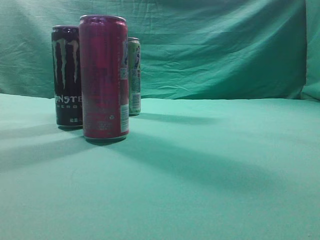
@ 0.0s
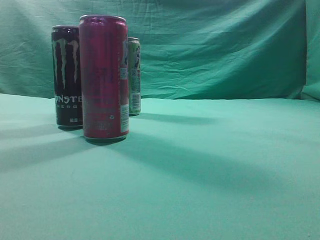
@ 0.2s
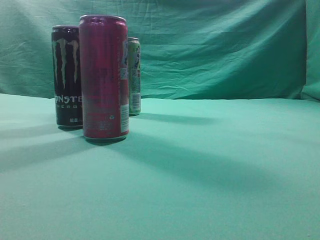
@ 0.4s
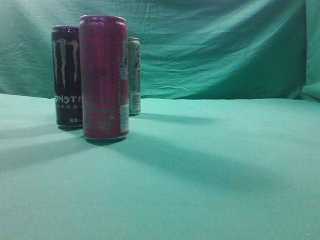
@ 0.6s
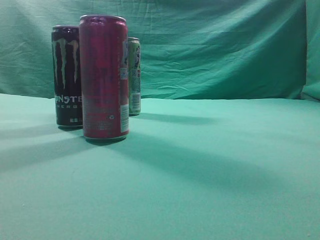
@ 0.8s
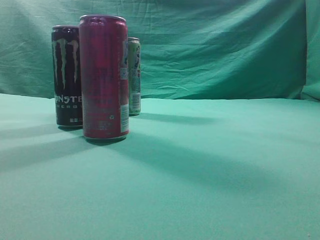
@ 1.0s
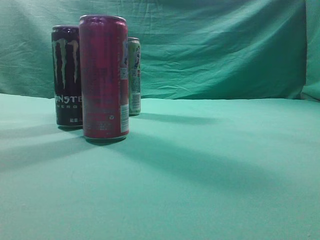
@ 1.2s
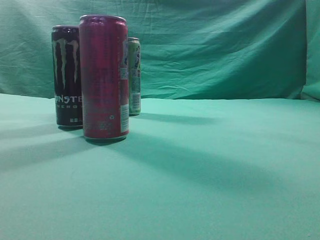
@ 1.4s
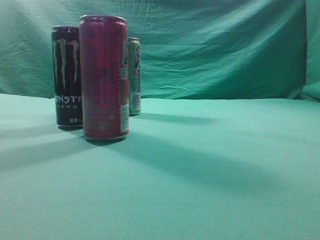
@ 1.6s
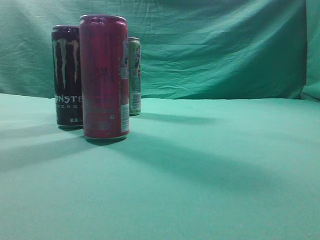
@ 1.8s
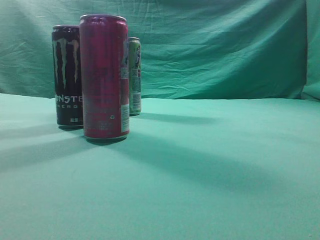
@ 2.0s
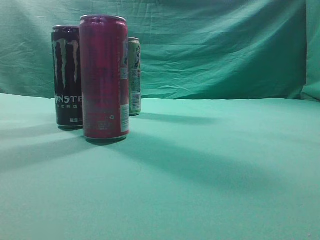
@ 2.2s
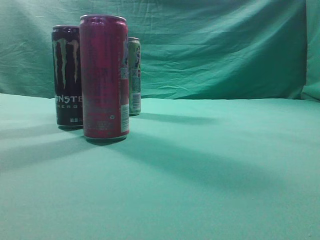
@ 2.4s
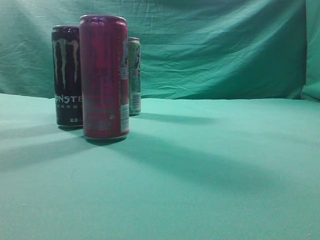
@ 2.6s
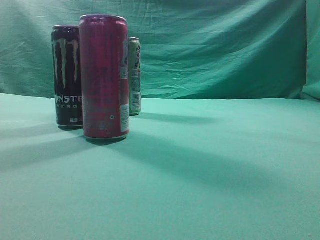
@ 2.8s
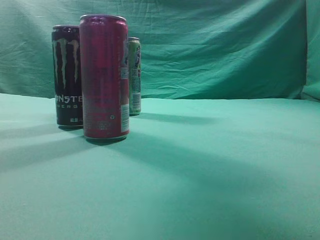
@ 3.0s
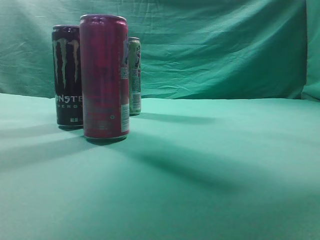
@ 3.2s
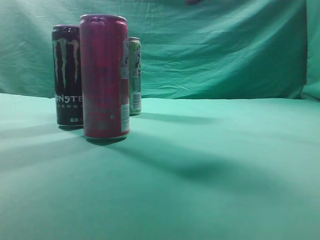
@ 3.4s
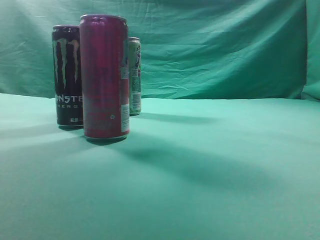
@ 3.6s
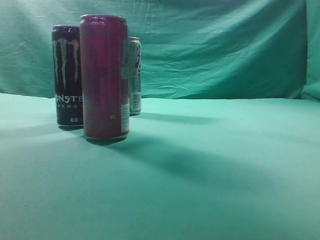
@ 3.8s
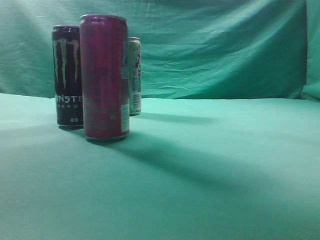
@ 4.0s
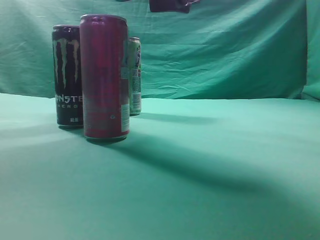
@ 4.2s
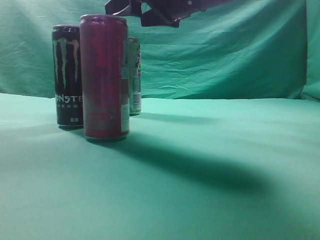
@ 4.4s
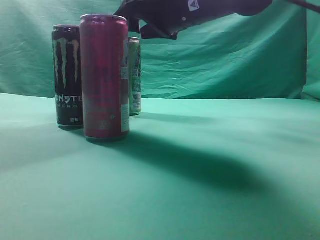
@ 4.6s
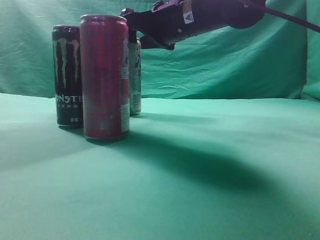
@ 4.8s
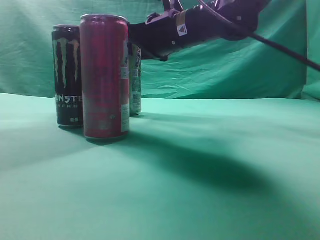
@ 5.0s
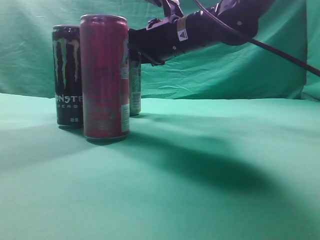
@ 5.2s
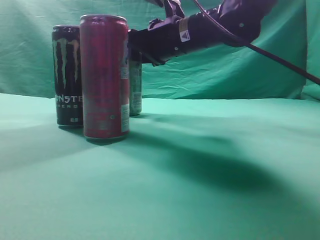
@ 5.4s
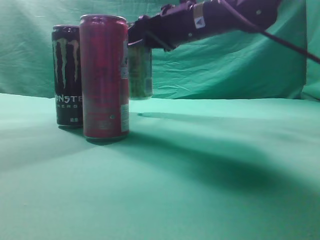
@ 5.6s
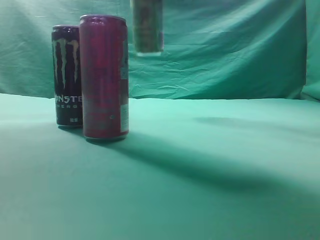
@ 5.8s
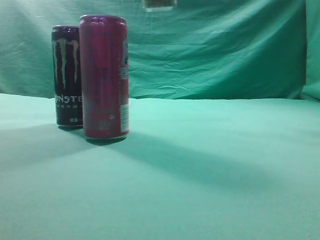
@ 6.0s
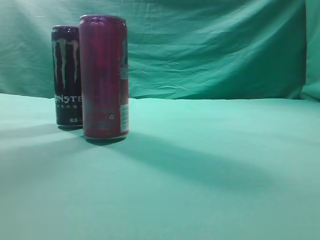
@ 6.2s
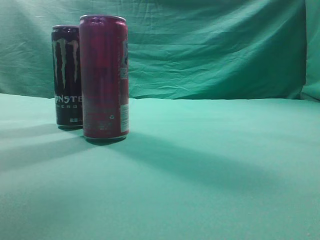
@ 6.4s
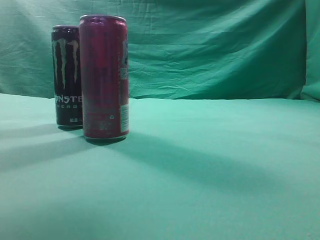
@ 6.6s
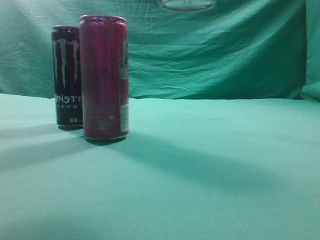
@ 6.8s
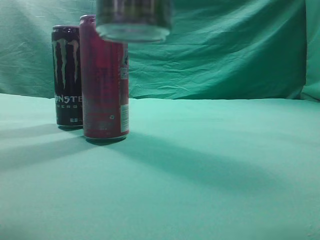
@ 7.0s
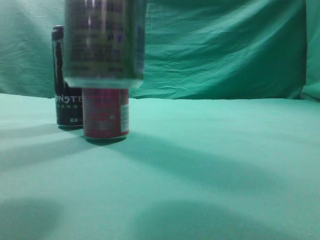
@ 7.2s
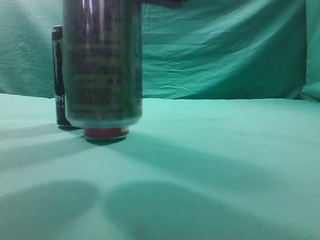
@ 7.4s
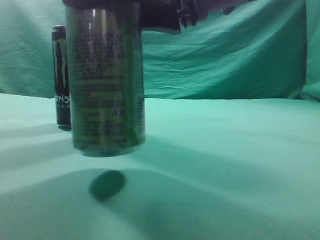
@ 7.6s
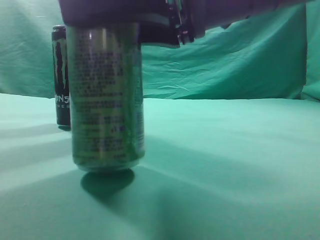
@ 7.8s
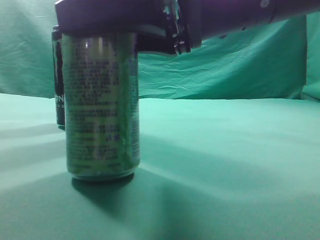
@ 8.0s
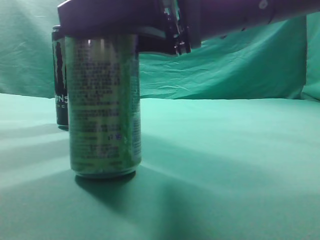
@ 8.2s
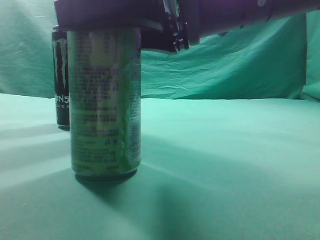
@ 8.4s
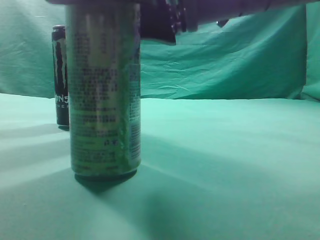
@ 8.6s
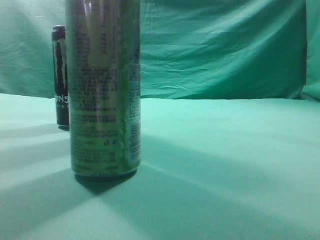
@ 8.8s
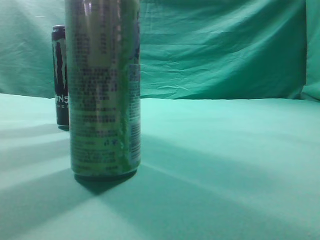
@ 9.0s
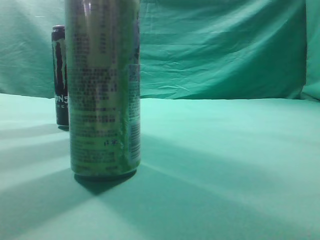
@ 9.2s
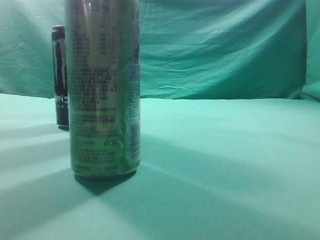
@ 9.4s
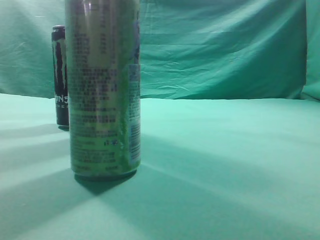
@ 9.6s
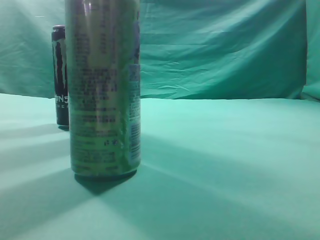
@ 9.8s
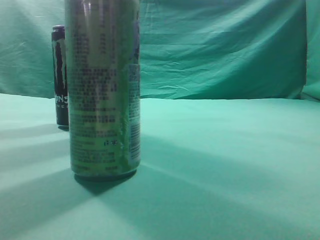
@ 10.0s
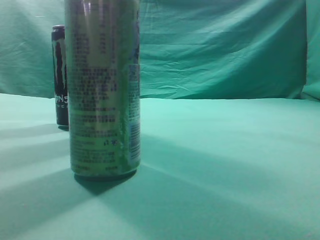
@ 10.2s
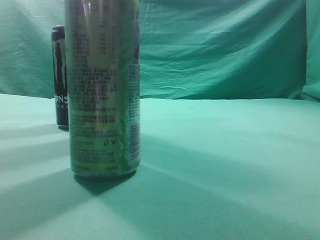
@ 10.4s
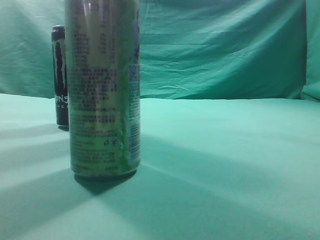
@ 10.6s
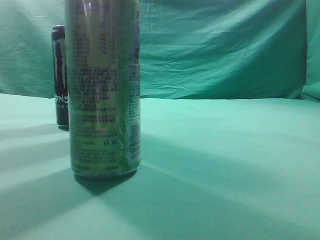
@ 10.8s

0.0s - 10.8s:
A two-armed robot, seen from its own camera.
Task of the whole recording: move one drink among three beverages.
Step, 0.0s - 5.6s: Grasp the beverage bottle placed at the back of the desk.
Step, 5.8s - 8.6s: Place the beverage bottle to the front of the table.
1.6s - 3.0s: The right gripper shifts about 25 cm forward, to the left and upward.
3.0s - 4.6s: The right gripper moves forward and to the left, roughly 25 cm, and opens its fingers.
4.6s - 6.2s: The right gripper heads upward, backward and to the right, covering roughly 20 cm.
6.2s - 7.8s: The right gripper is displaced downward and backward by some 25 cm.
7.8s - 9.2s: The right gripper shifts approximately 15 cm upward and to the right, and closes its fingers.
